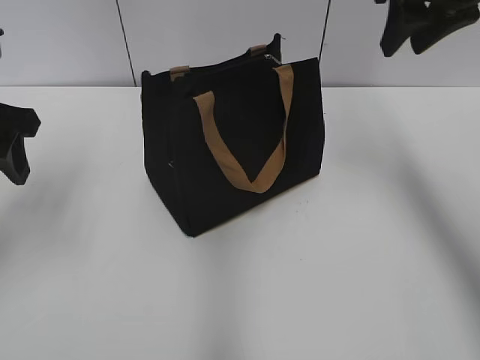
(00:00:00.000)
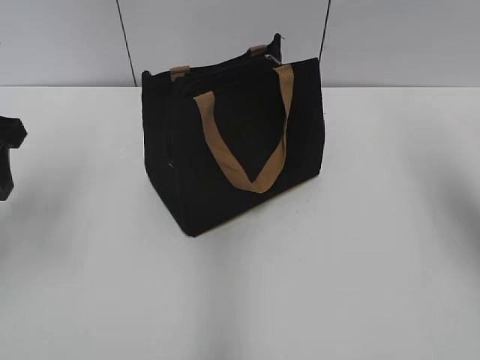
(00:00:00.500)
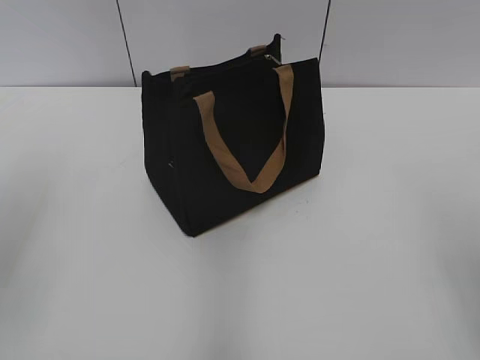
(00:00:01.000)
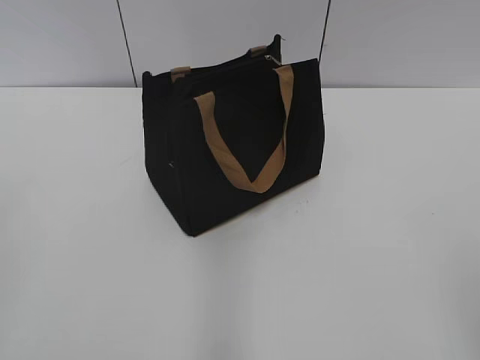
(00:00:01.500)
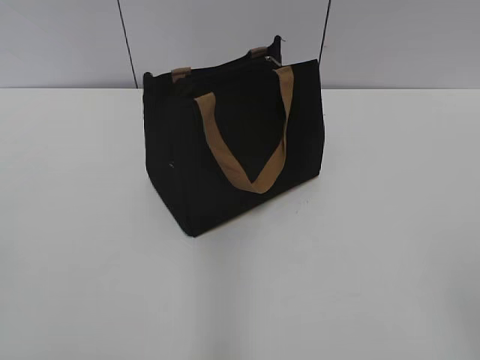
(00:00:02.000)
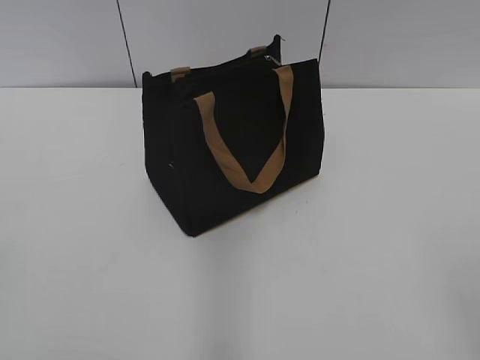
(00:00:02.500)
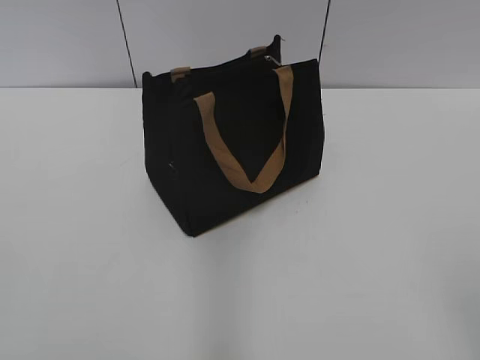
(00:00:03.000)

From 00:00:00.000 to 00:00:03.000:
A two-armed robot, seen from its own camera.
From 00:00:00.000 to 00:00:01.500: The right gripper goes about 35 cm backward. Meanwhile the left gripper travels backward by about 20 cm.
